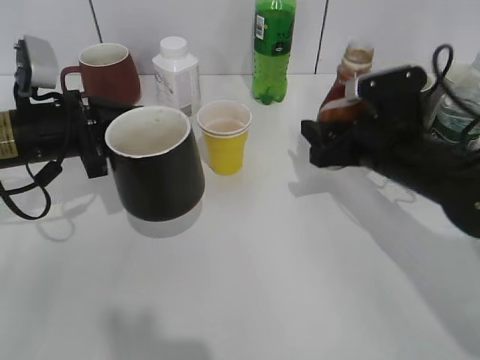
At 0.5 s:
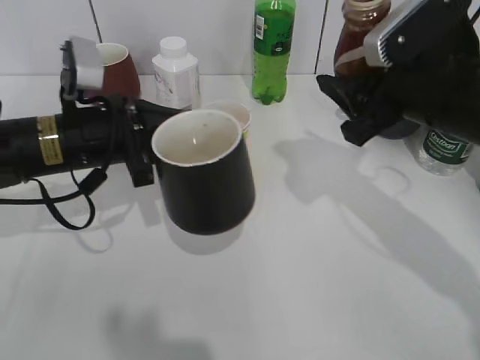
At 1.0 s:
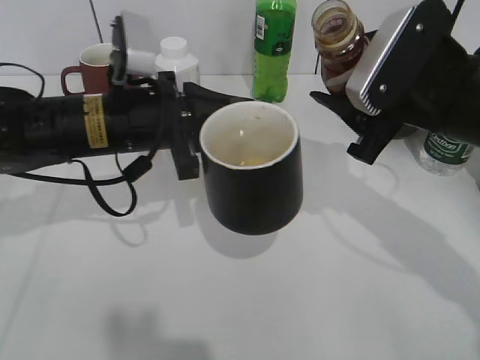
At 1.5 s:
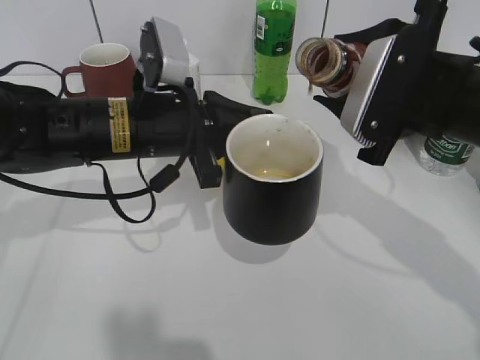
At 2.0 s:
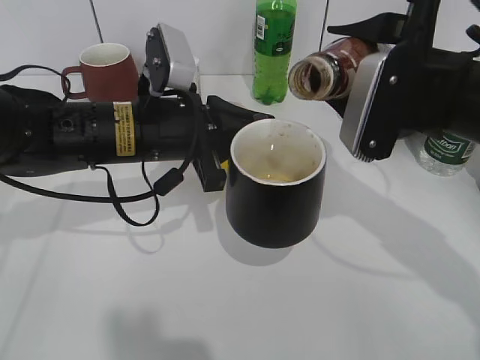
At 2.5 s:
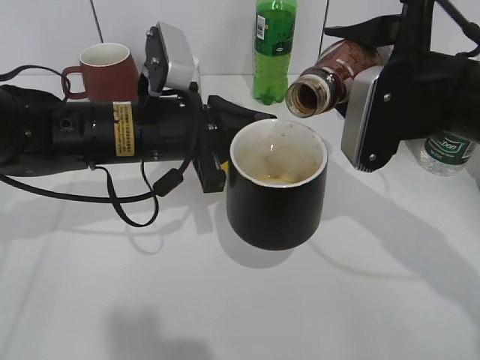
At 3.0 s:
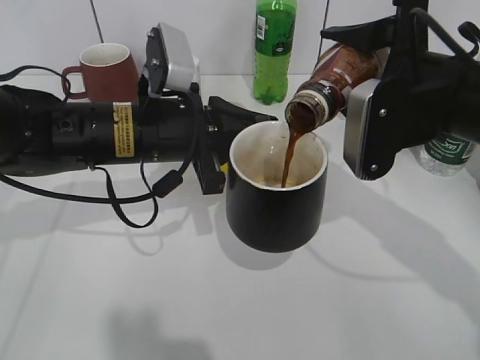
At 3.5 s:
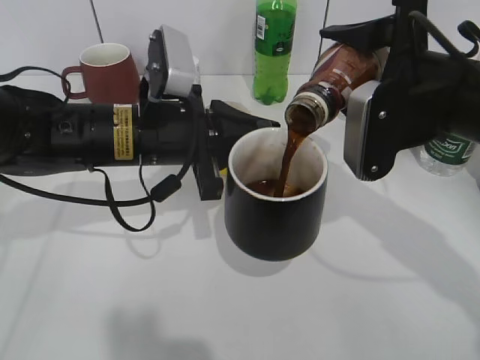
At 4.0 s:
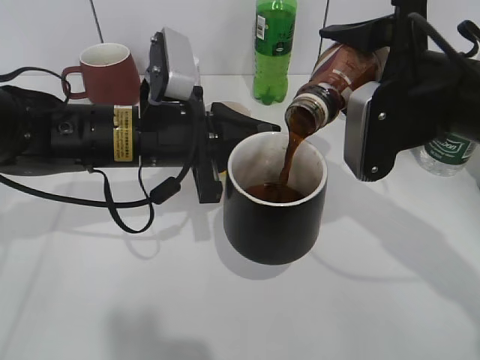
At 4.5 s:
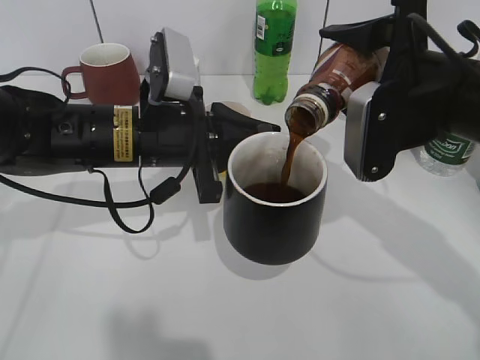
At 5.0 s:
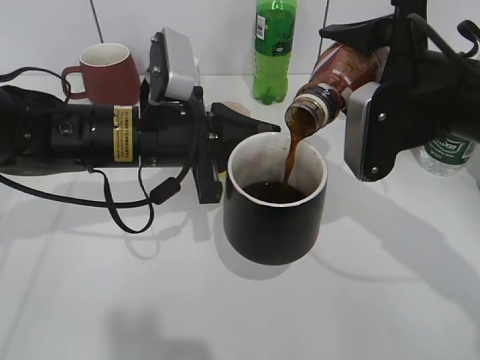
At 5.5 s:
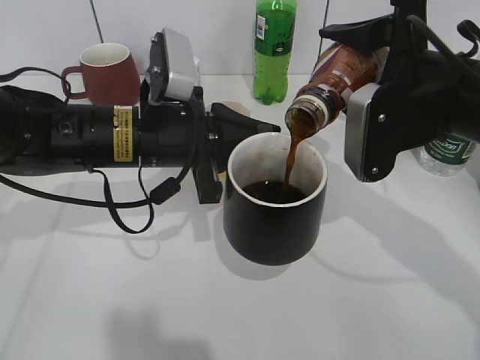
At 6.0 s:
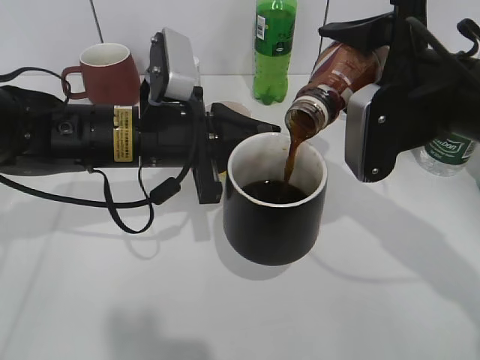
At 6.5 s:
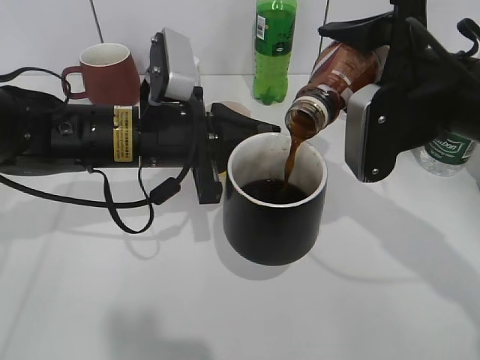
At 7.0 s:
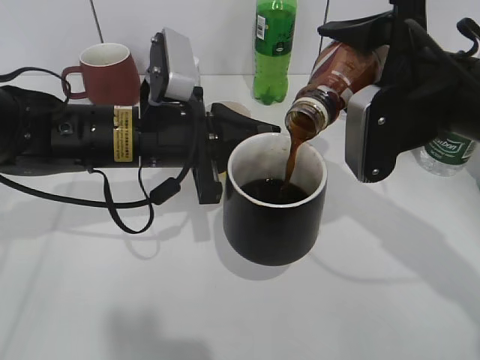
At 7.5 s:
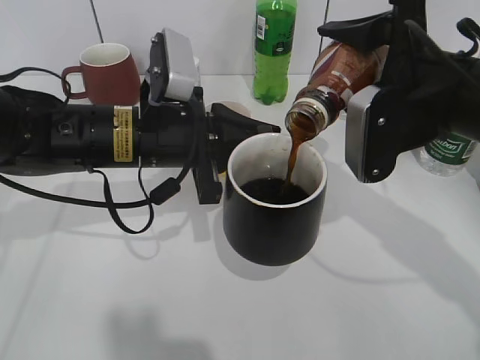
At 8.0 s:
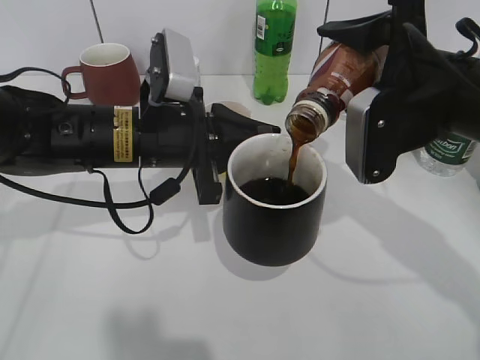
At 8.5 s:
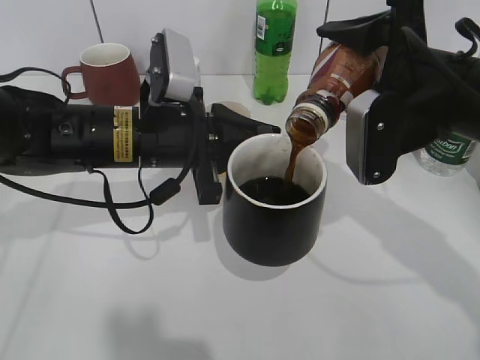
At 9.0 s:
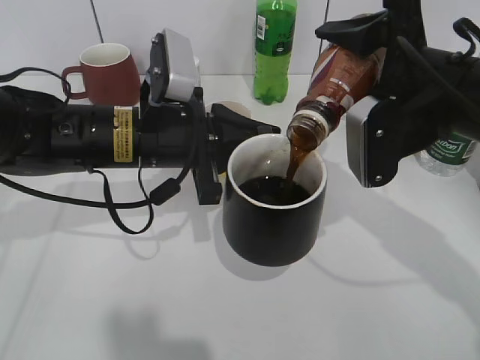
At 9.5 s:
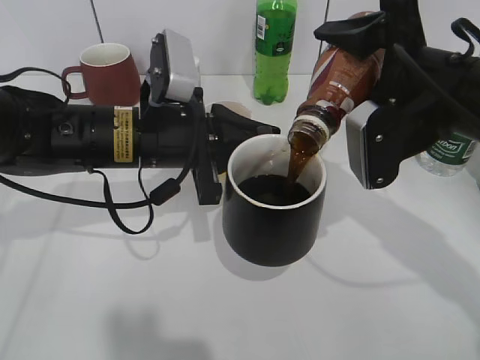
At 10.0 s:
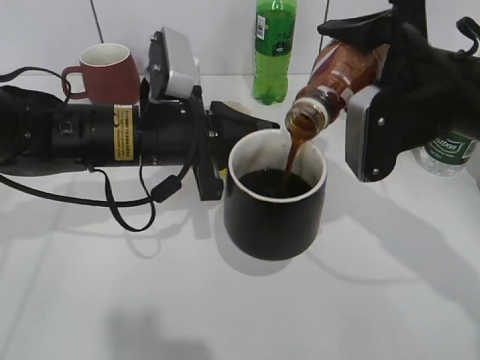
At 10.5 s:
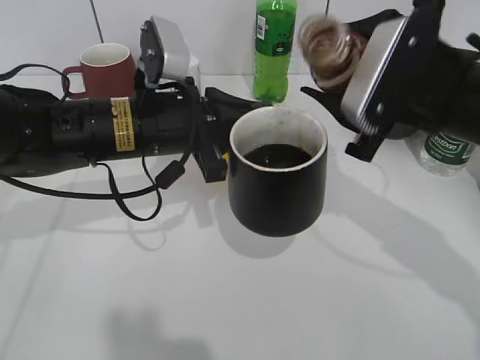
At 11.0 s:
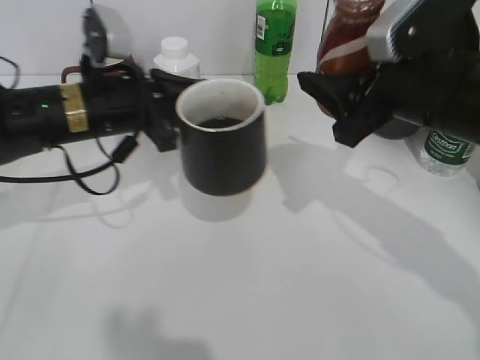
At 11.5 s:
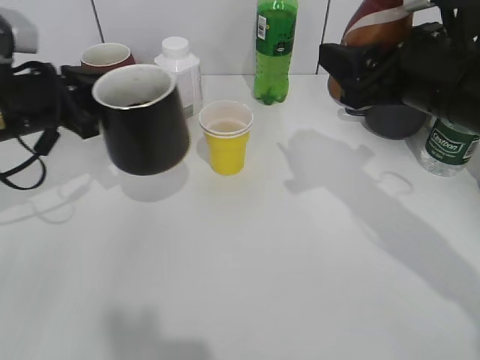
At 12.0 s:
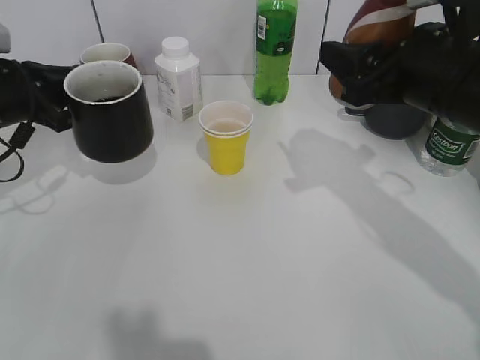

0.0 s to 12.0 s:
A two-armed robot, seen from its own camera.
Step, 0.0 to 10.0 s: Pour the coffee from bottle to cup with right gripper.
0.0 to 2.0 s: The left gripper moves to the right, about 15 cm, while the right gripper heads upward, covering roughly 10 cm.
2.0 to 4.0 s: There are only small adjustments of the grippers.
4.0 to 6.0 s: Both grippers stay put.
6.0 to 8.0 s: Both grippers stay put.
8.0 to 10.0 s: The grippers make only small movements.
10.0 to 12.0 s: The left gripper is displaced to the left by about 20 cm.

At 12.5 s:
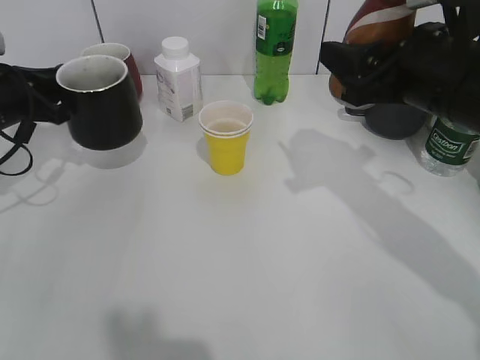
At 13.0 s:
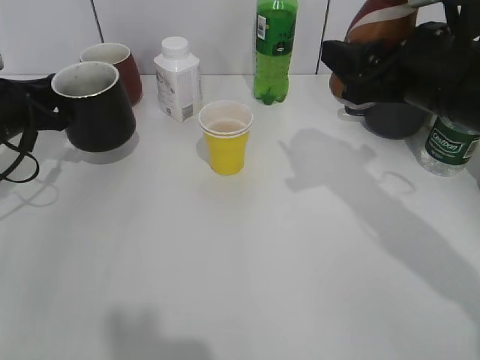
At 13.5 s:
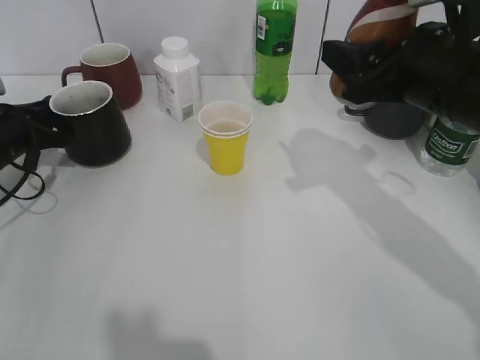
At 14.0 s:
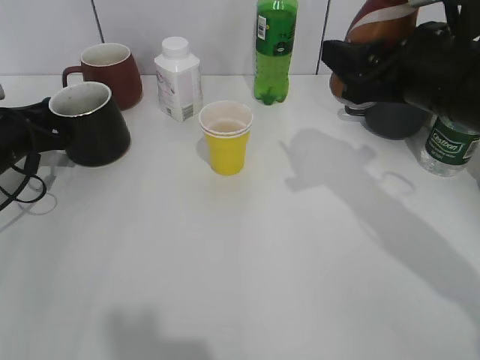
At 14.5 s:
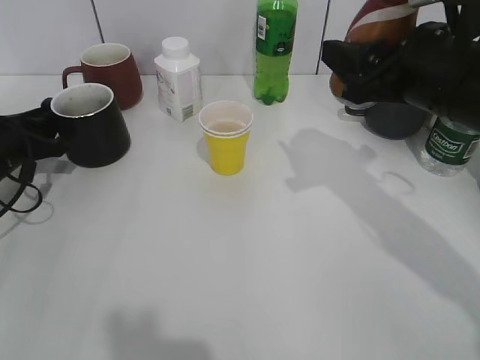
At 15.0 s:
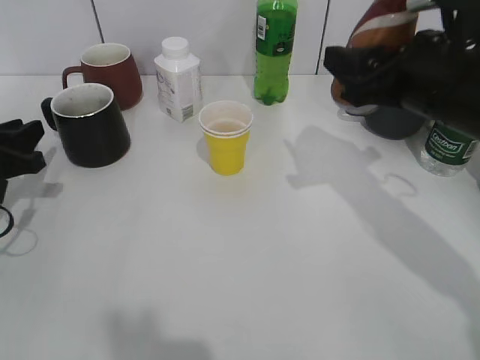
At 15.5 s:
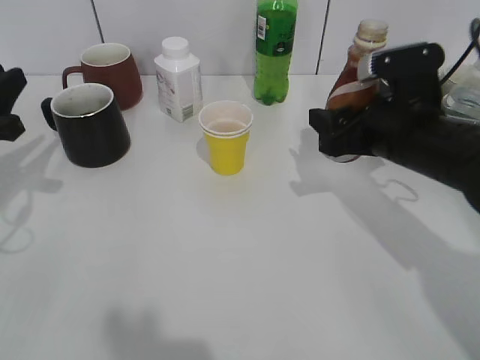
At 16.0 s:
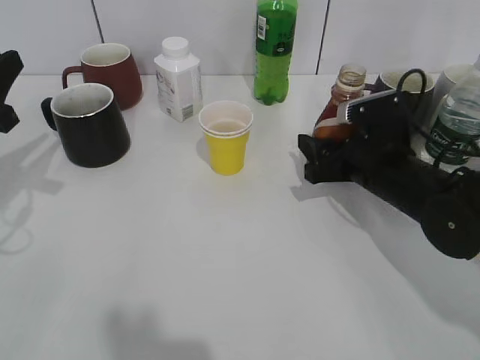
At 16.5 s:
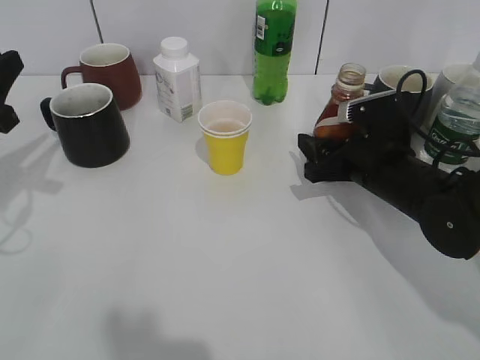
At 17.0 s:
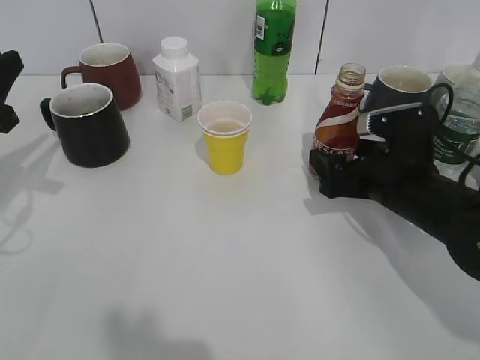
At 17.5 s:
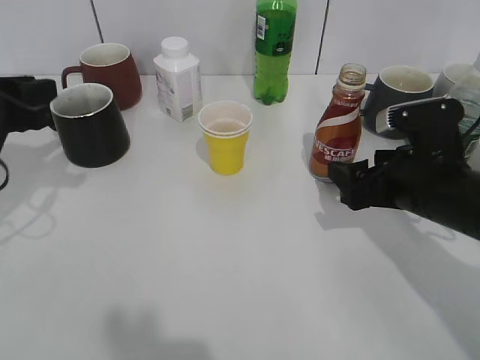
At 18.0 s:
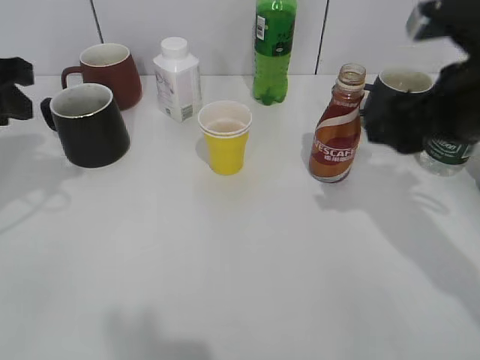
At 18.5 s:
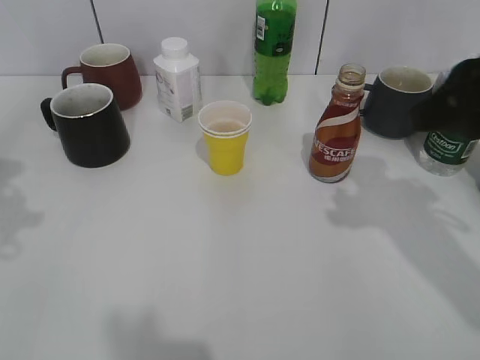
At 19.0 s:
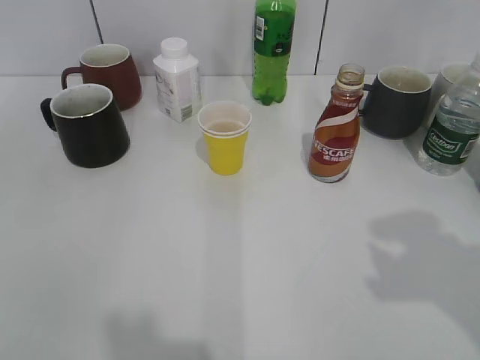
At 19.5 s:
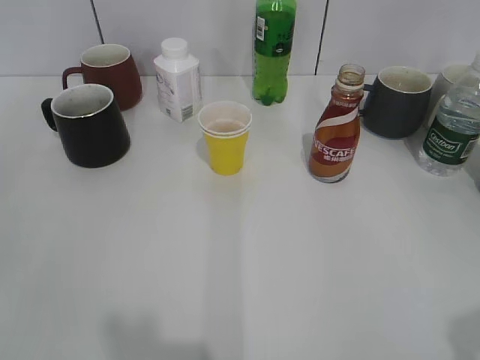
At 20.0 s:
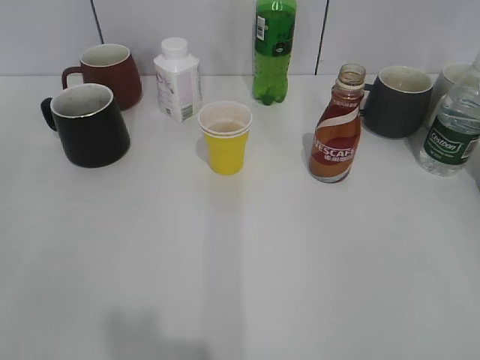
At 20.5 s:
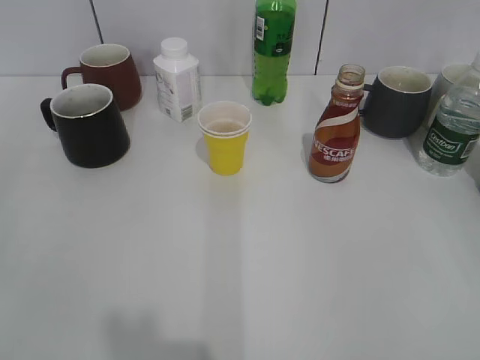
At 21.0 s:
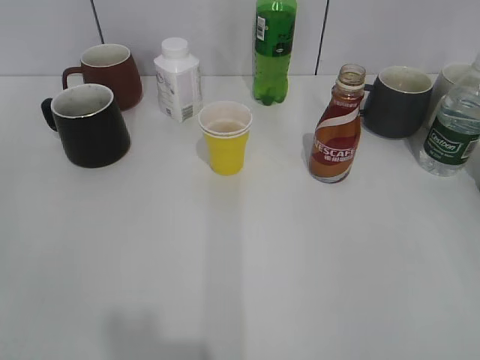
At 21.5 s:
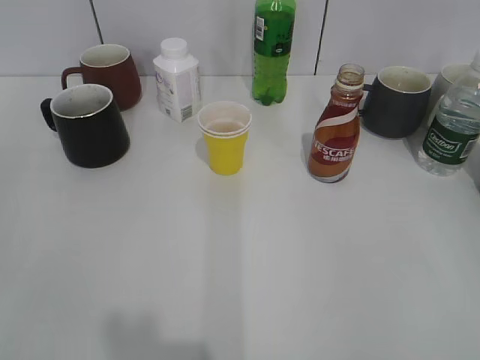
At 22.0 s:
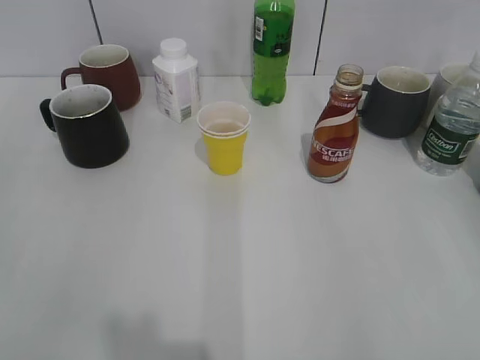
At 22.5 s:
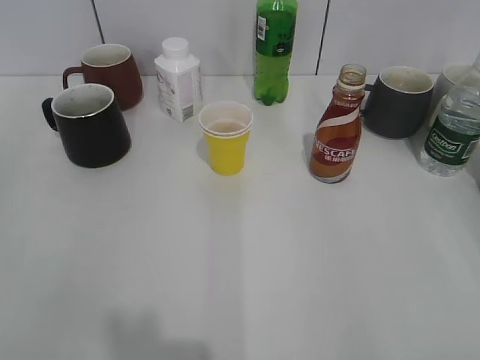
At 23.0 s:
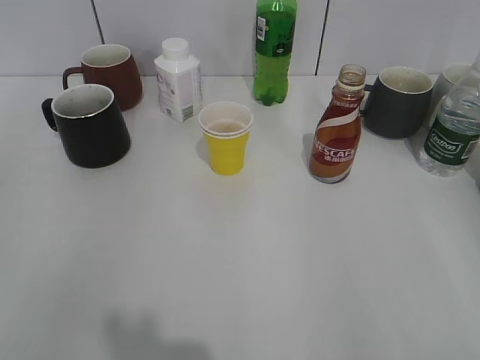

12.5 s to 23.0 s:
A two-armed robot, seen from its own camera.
Step, 12.5 to 14.5 s: Place the black cup on the table with left gripper.
Step, 15.0 to 17.0 s: Place the coffee bottle on the table with right gripper.
12.5 to 14.5 s: The left gripper is displaced downward by some 5 cm, and opens its fingers.
14.5 to 16.5 s: The right gripper heads downward, covering approximately 15 cm, while the left gripper shifts some 15 cm upward and backward.
16.5 to 19.0 s: The left gripper shifts some 20 cm backward and upward. Meanwhile the right gripper goes approximately 30 cm upward and backward, and opens up.

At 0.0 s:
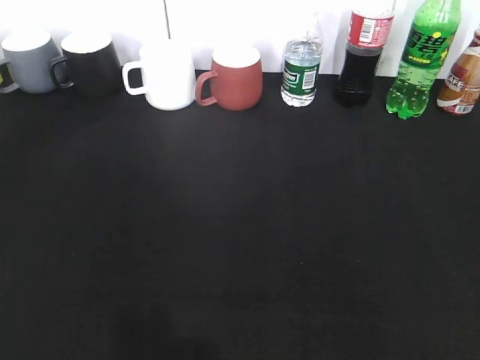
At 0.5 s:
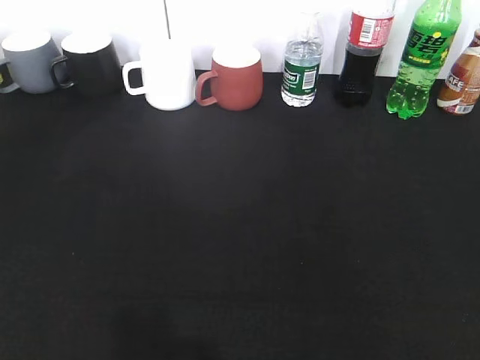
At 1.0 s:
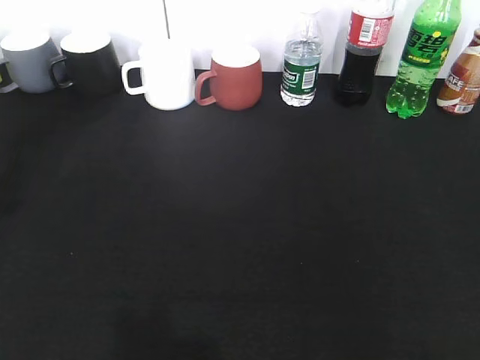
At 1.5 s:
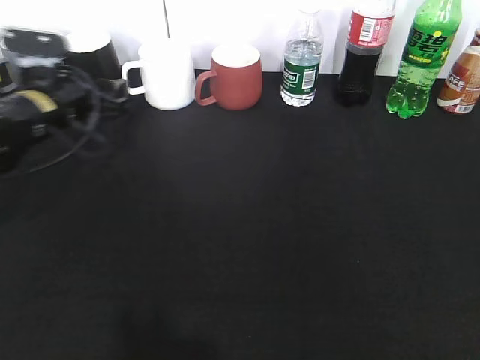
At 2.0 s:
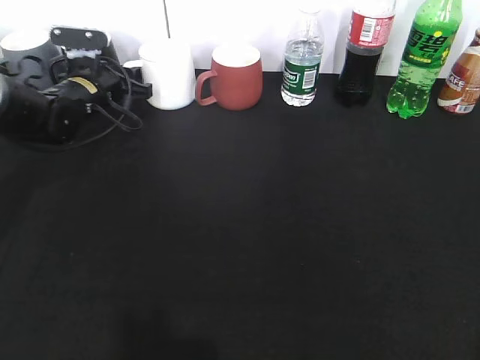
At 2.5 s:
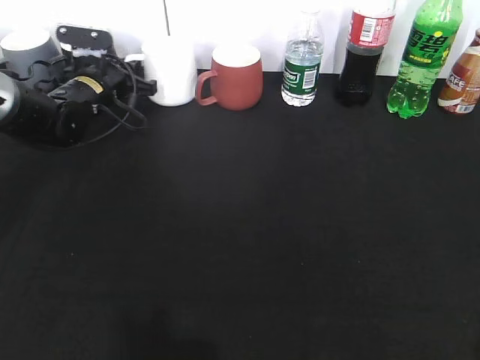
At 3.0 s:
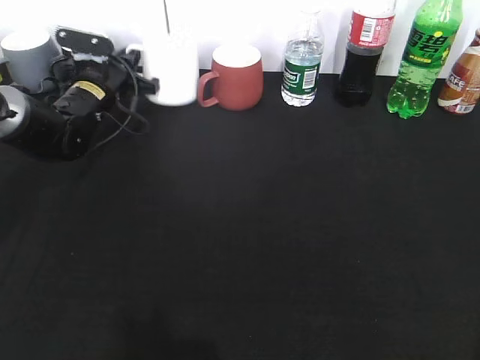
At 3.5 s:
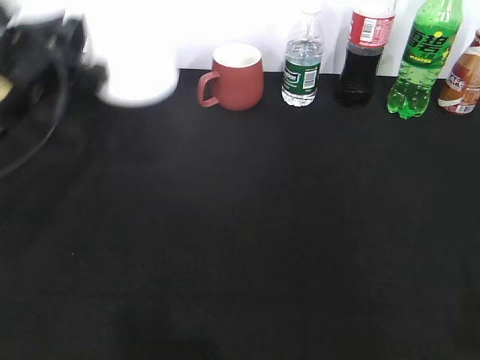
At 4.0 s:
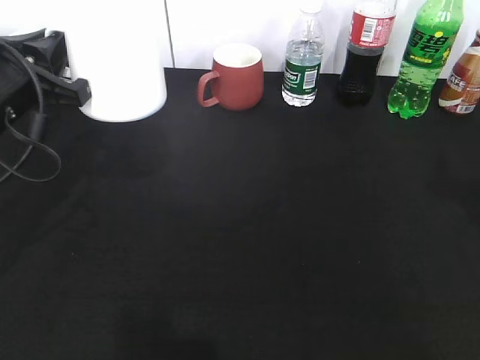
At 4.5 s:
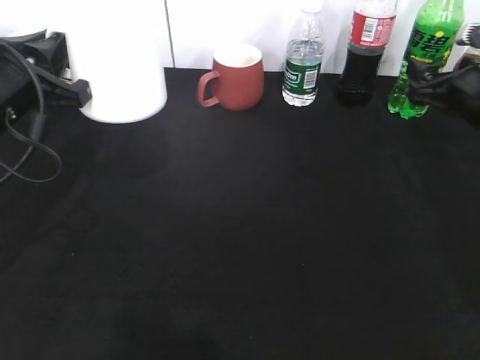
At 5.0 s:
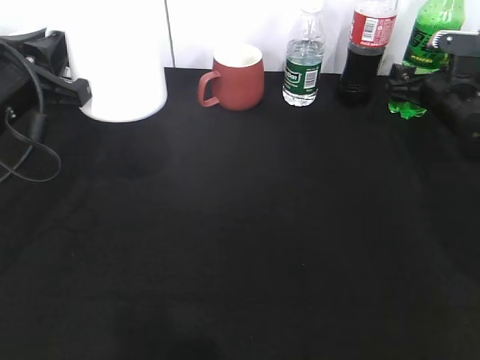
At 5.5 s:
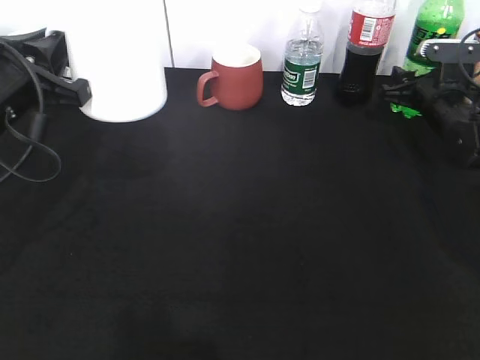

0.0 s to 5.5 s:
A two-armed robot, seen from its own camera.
Step, 0.0 to 2.5 s: Grasp the white cup with left gripper.
Step, 3.0 to 4.0 s: Lift the white cup with left gripper.
Step, 4.5 to 5.5 s: Grasp the bottle with sprite with right gripper.
0.0 to 2.0 s: The left gripper moves forward, about 50 cm, and closes.
2.0 to 3.5 s: The left gripper heads backward and upward, covering roughly 20 cm, and closes up.
3.5 to 5.5 s: The right gripper travels forward and downward by roughly 50 cm, and closes.
